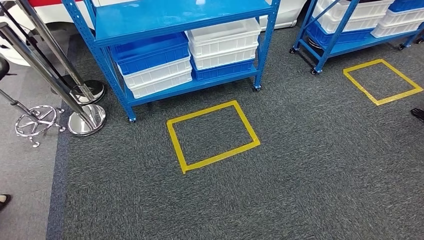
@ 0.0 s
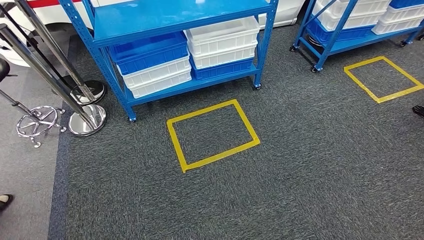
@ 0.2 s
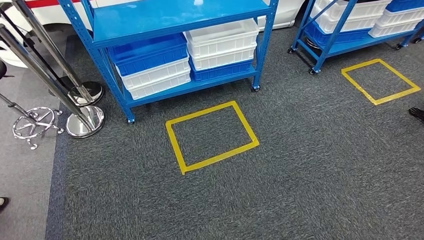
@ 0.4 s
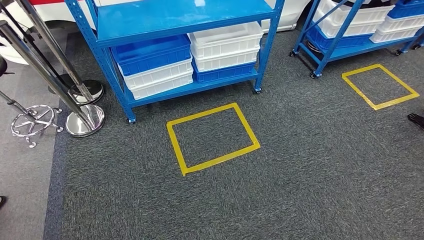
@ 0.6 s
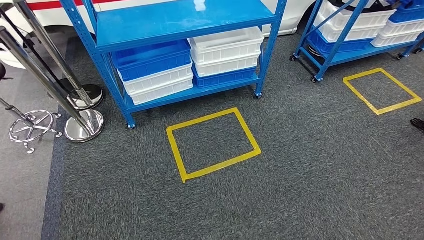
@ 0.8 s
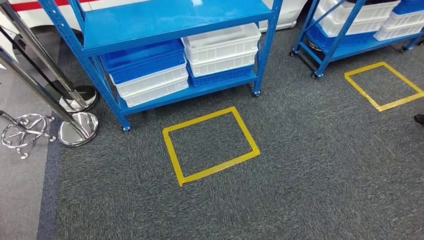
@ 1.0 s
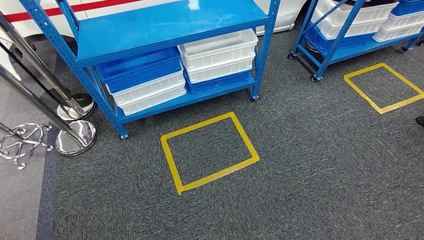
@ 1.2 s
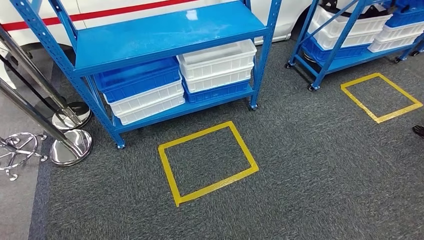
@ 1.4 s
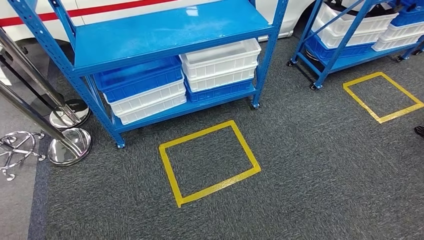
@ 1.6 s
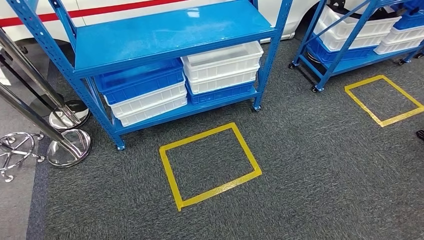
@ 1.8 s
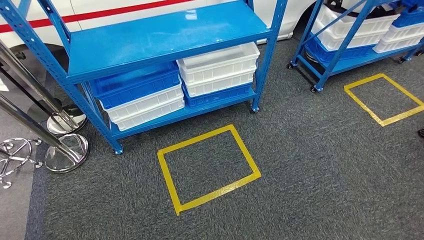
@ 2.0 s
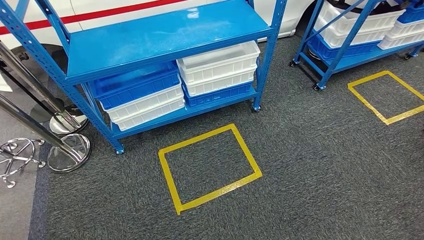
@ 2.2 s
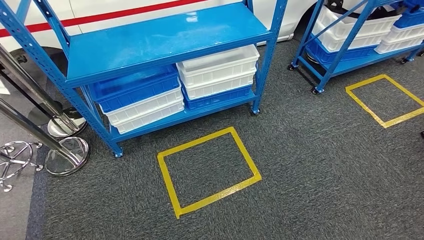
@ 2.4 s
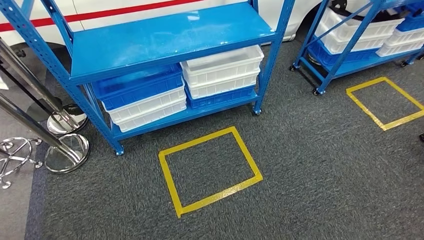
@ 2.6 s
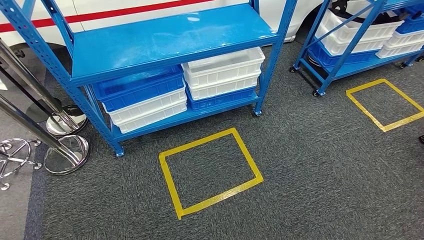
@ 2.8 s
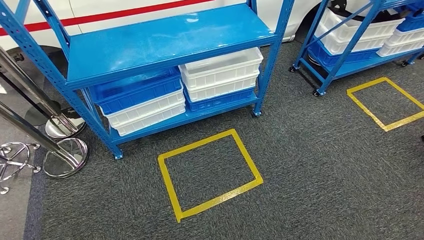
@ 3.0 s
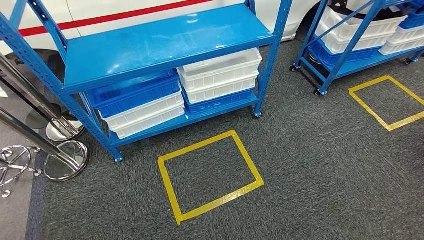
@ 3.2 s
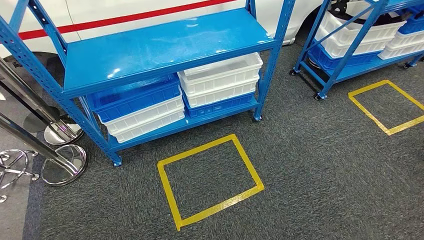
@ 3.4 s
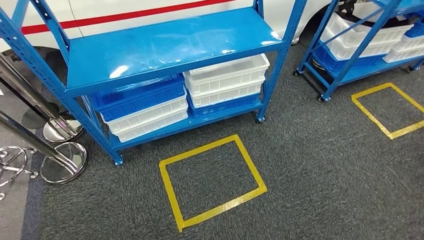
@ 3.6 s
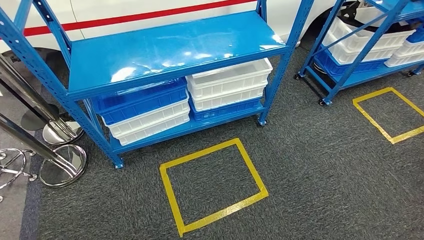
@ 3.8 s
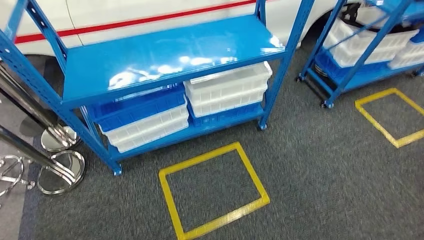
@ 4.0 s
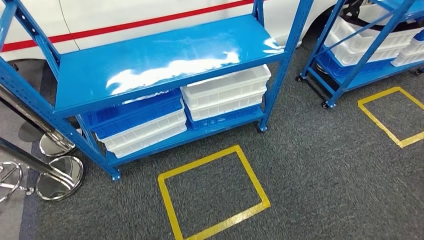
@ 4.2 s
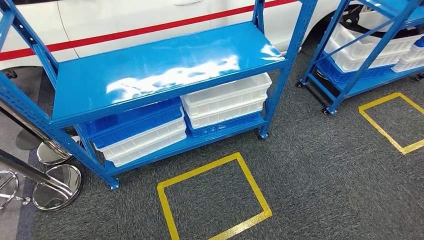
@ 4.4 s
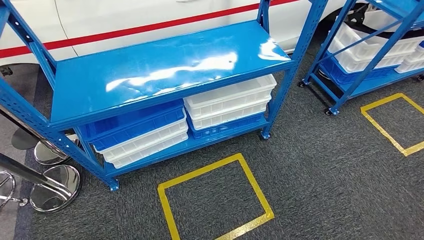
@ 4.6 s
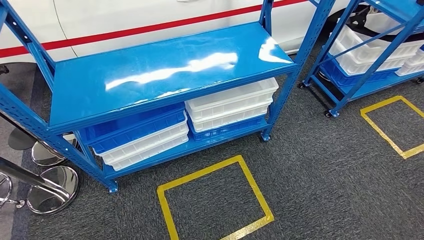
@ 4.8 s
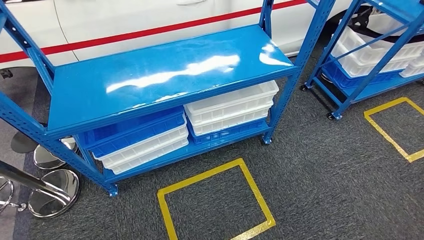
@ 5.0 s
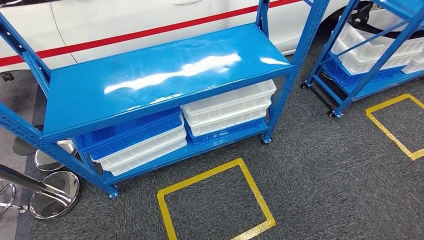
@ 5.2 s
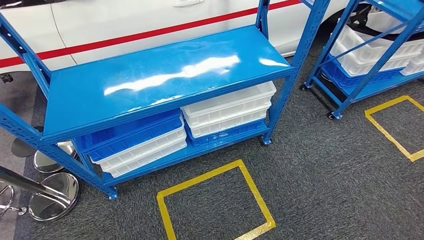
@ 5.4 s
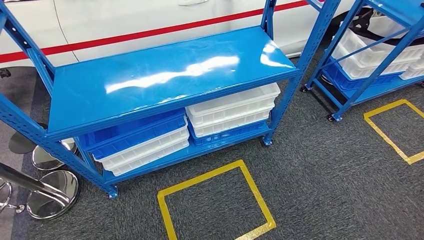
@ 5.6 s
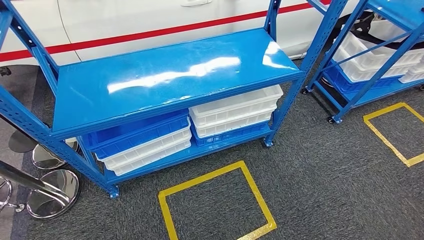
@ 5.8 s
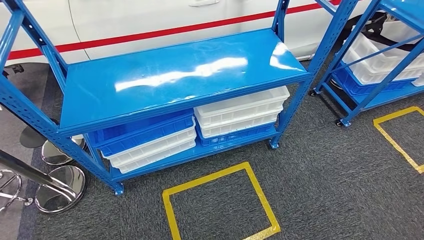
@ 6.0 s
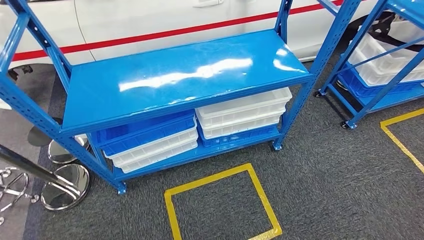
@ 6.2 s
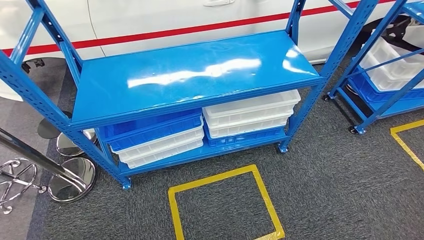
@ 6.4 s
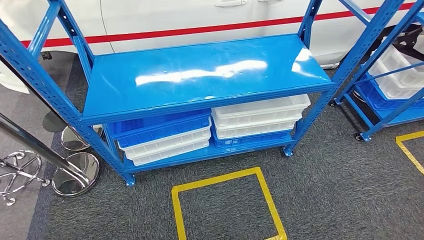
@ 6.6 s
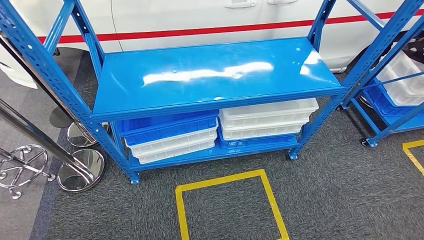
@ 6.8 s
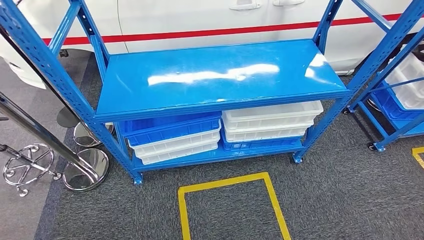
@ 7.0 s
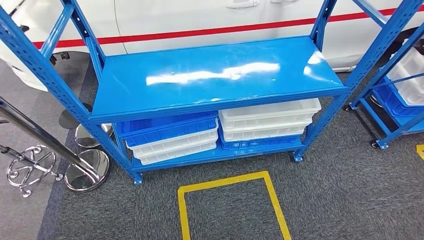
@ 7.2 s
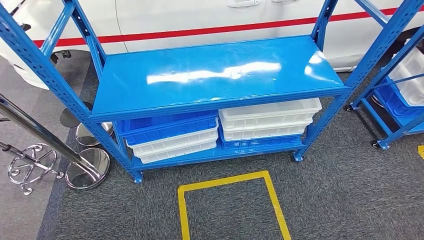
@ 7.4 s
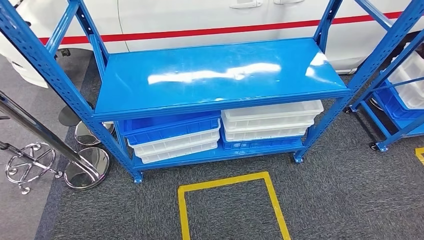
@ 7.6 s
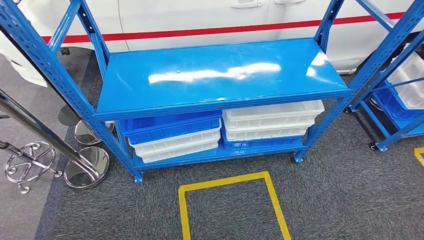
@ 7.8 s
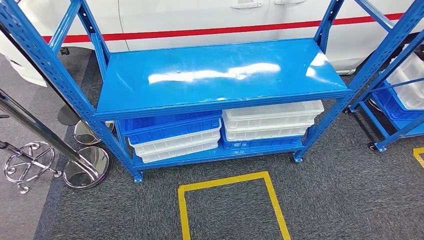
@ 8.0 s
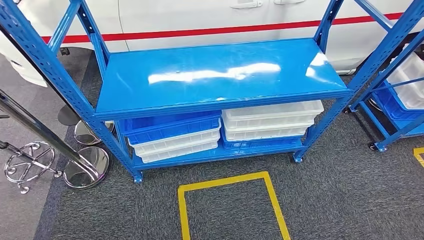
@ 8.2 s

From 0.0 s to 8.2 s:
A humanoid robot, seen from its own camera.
Step, from 0.0 s to 8.0 s: Move to the initial position of the shelf.
